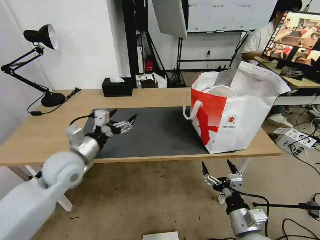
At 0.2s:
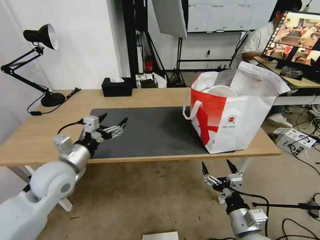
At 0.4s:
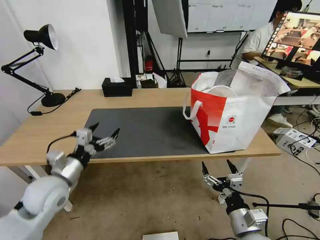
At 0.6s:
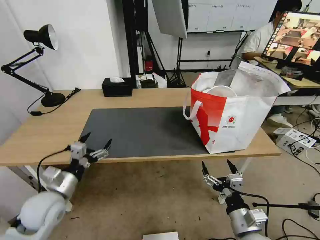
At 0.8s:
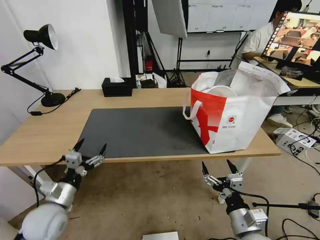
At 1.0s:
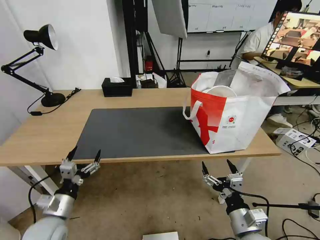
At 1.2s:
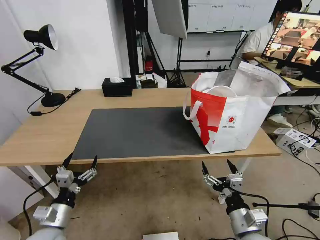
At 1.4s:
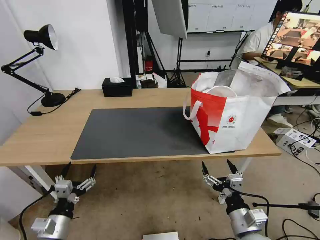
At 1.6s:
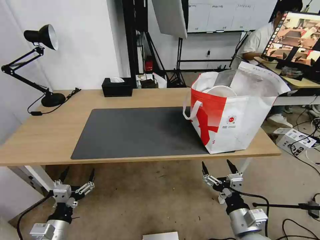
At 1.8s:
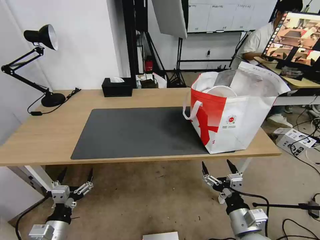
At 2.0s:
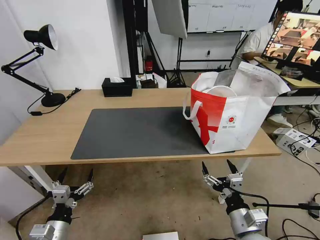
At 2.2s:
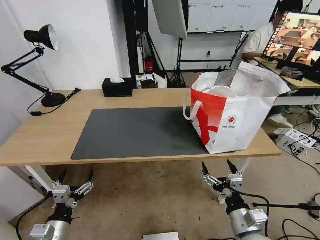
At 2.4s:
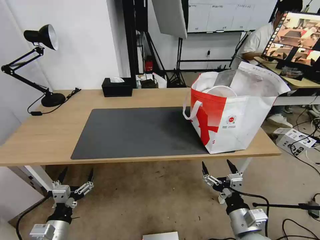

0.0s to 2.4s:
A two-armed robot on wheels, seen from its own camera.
Task of the whole recording: Pick up the trash from the table and place it into the takeout bag.
0.0s to 1.2s: The left gripper moves backward and downward, roughly 20 cm.
1.2s to 2.4s: The grippers make only small movements.

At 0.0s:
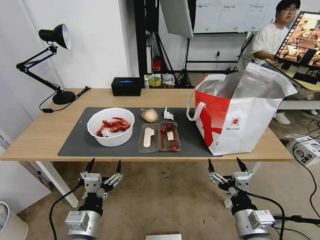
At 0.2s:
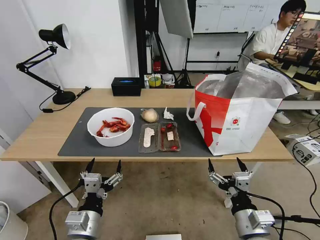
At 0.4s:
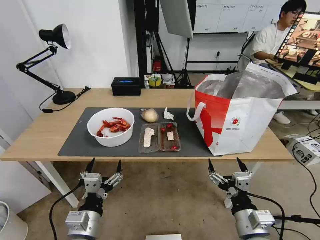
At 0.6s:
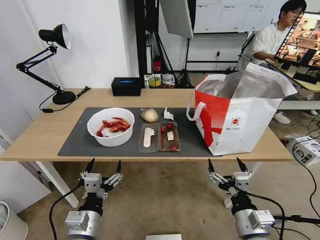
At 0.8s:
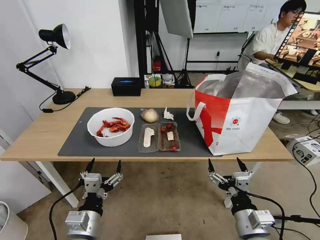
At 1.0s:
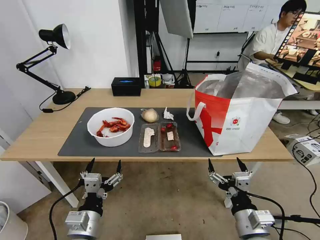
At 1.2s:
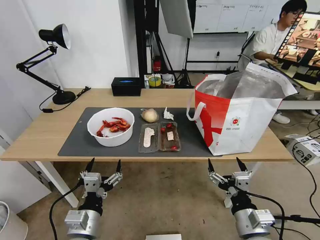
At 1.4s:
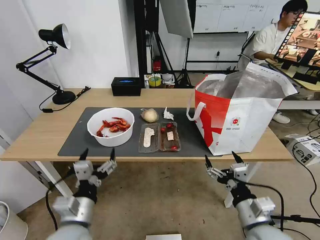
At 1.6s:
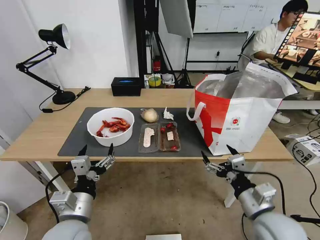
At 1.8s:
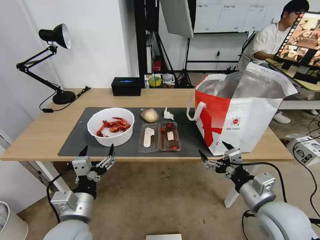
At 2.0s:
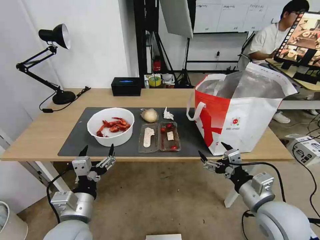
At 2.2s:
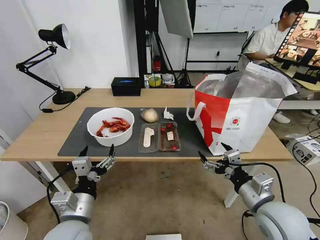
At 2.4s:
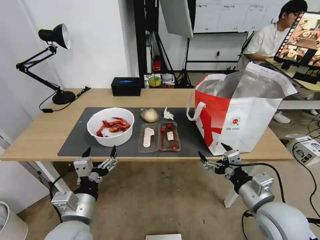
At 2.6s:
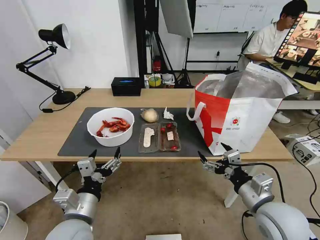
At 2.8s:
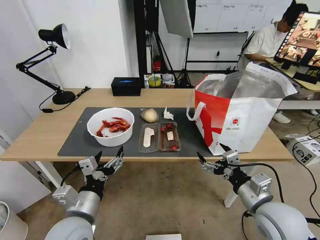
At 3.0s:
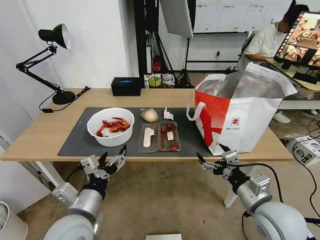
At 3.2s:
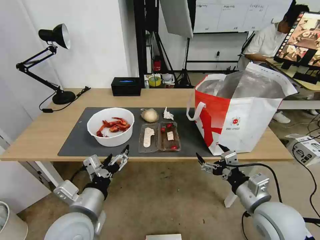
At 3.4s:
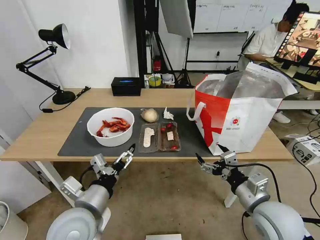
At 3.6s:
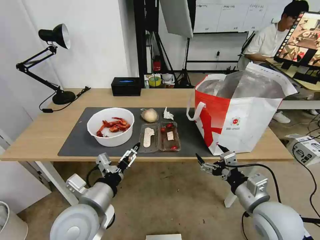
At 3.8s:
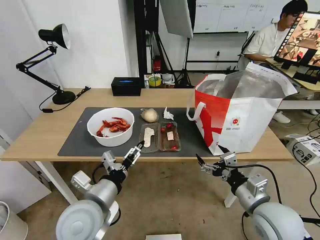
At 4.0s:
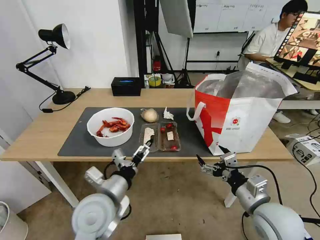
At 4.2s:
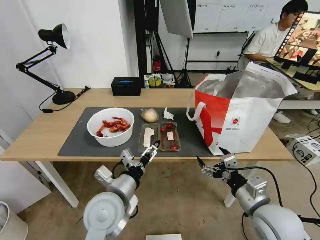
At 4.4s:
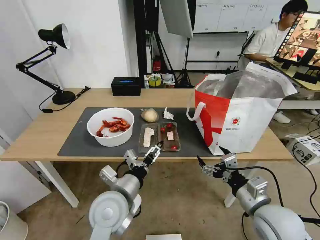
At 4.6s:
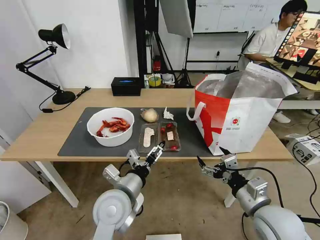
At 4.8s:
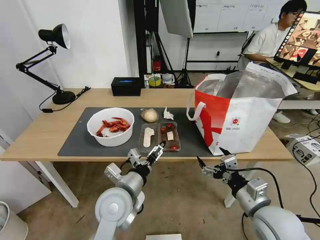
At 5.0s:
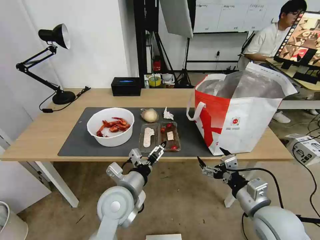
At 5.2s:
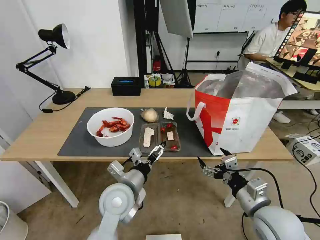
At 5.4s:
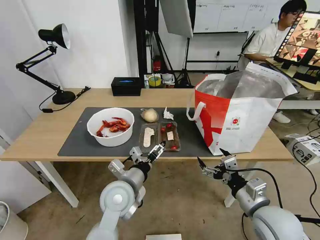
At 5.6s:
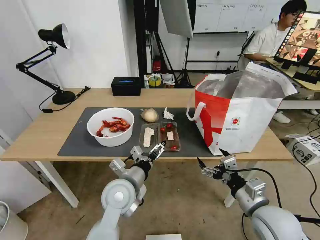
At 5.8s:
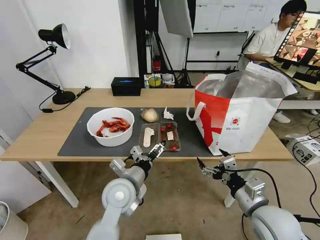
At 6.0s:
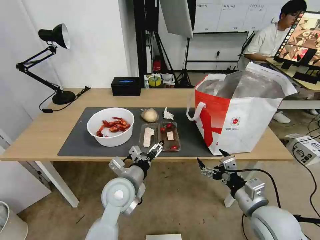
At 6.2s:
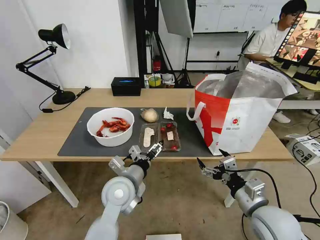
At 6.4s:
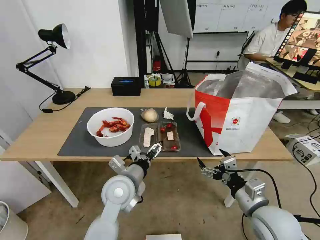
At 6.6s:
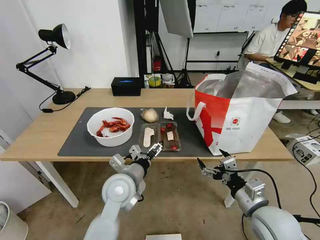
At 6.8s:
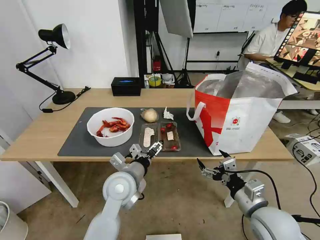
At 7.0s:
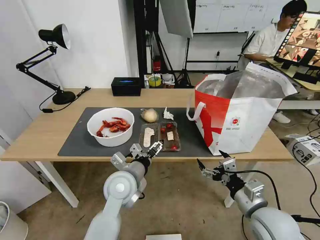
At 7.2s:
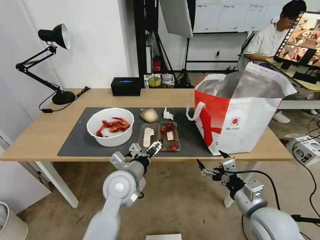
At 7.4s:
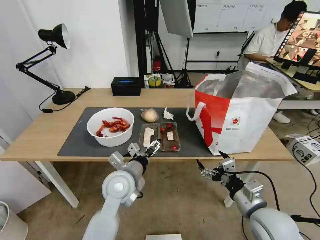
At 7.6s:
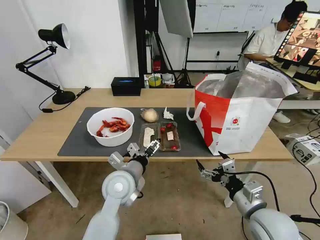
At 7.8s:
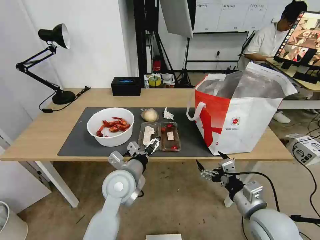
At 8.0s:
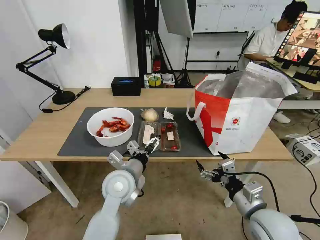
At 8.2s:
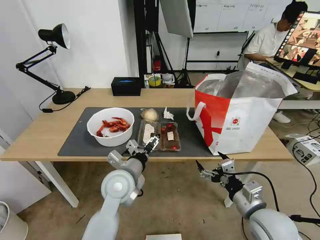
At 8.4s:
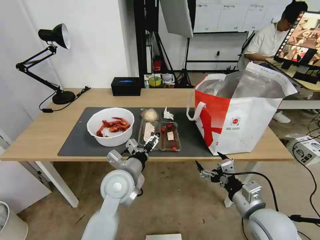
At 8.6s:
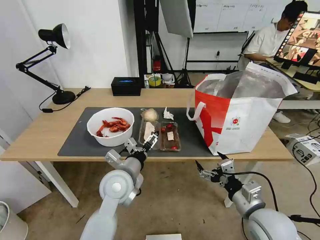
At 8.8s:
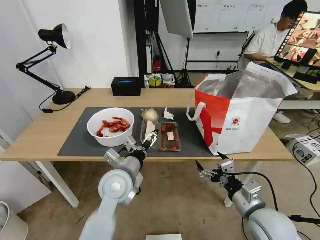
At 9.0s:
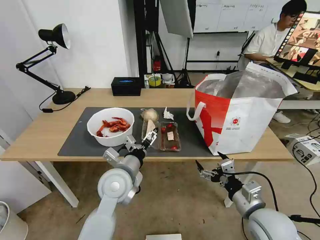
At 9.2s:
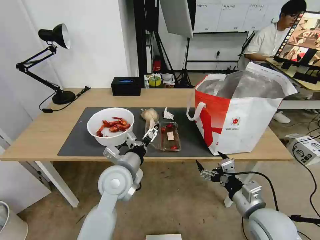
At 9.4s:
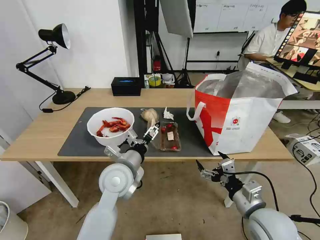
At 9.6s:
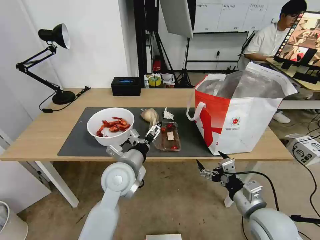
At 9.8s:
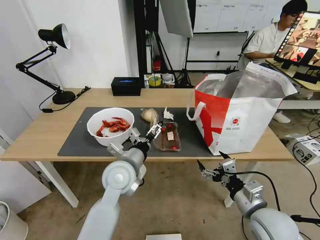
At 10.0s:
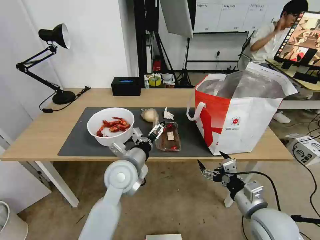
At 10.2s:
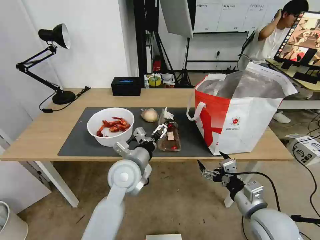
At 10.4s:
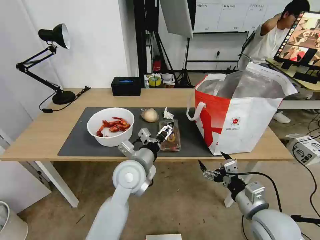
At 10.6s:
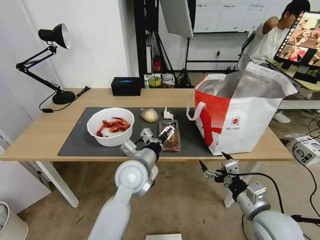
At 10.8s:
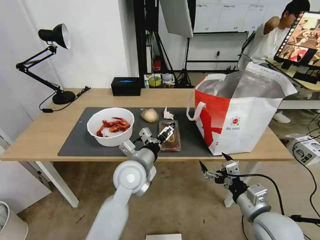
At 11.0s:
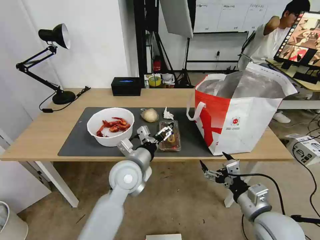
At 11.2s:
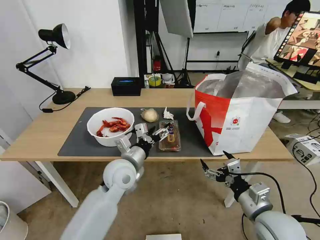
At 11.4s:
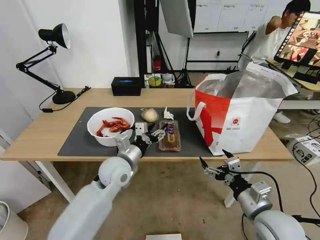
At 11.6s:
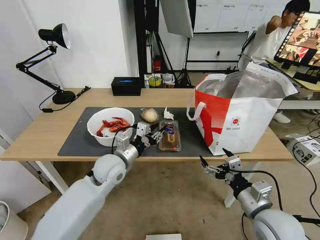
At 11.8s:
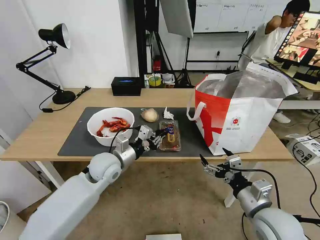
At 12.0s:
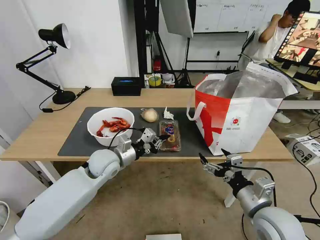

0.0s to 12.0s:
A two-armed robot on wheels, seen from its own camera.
Task of the whole recording: Pick up the trash from the table and place it into the takeout bag.
3.0s to 4.4s: The left gripper moves to the right and forward, some 10 cm.
4.4s to 6.0s: The left gripper heads forward, covering about 5 cm.
6.0s to 10.4s: There are only small adjustments of the grippers.
10.4s to 12.0s: The left gripper shifts about 10 cm to the left and forward, and closes its fingers.

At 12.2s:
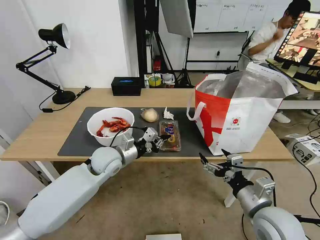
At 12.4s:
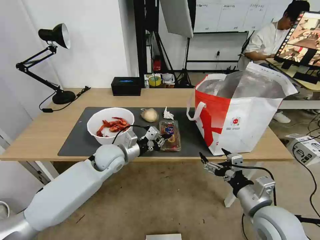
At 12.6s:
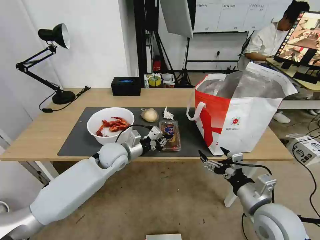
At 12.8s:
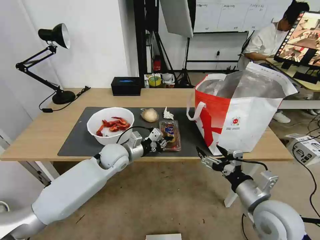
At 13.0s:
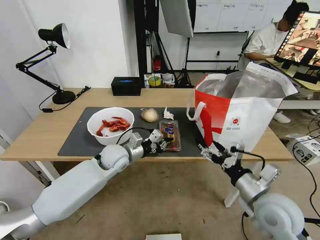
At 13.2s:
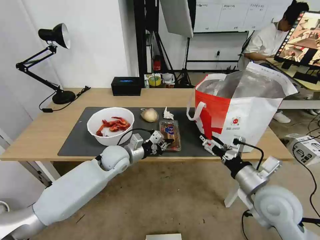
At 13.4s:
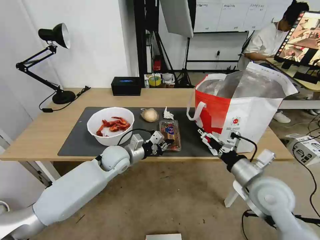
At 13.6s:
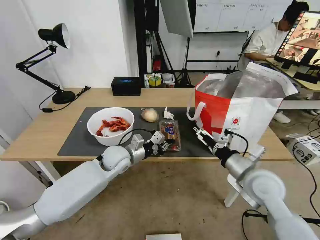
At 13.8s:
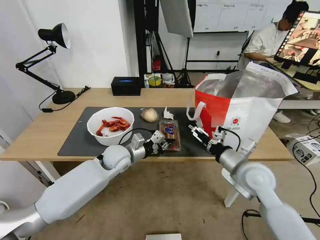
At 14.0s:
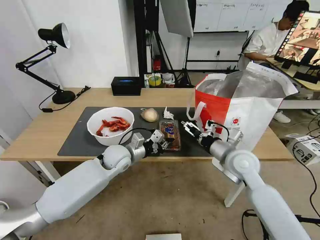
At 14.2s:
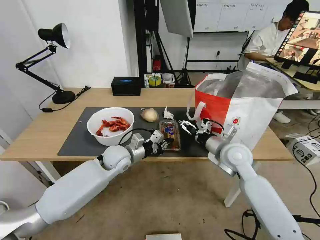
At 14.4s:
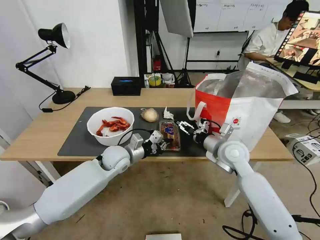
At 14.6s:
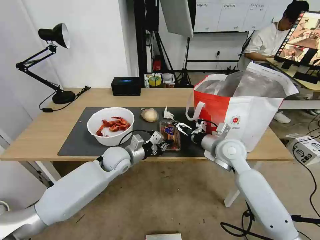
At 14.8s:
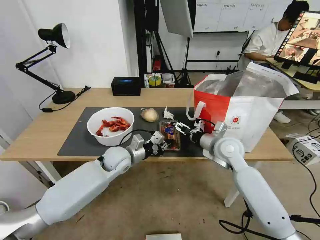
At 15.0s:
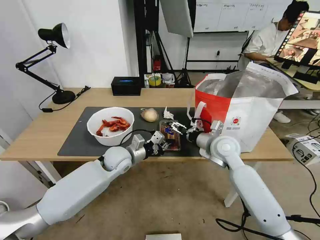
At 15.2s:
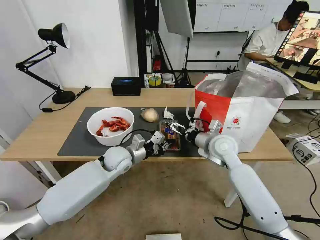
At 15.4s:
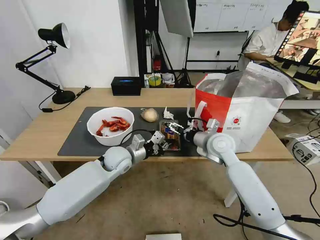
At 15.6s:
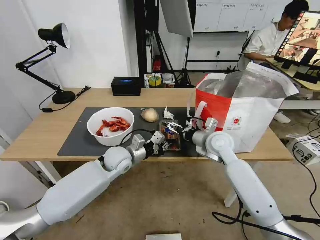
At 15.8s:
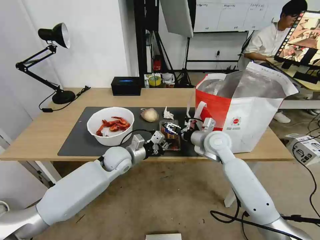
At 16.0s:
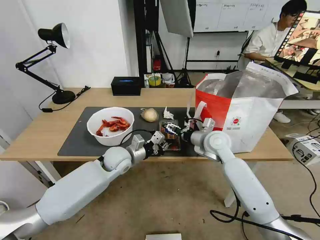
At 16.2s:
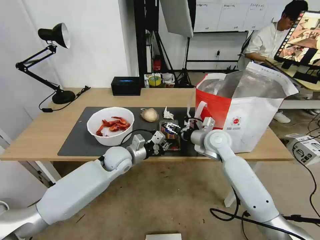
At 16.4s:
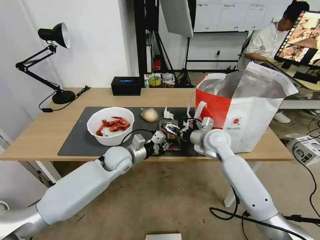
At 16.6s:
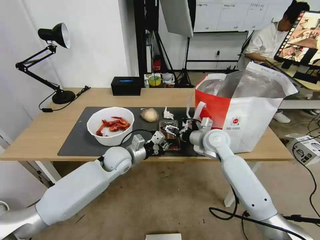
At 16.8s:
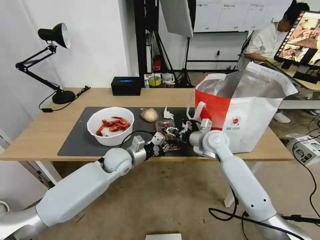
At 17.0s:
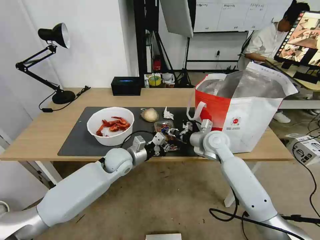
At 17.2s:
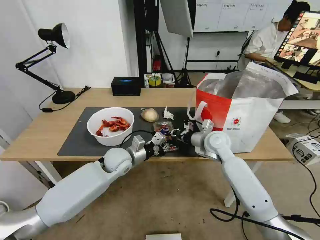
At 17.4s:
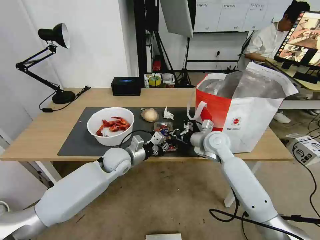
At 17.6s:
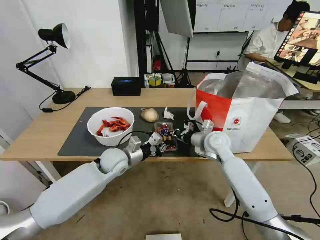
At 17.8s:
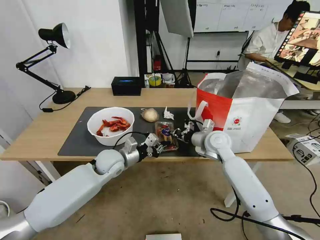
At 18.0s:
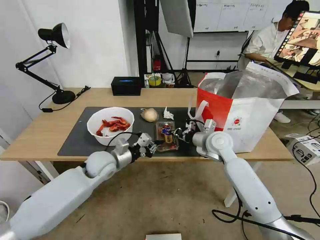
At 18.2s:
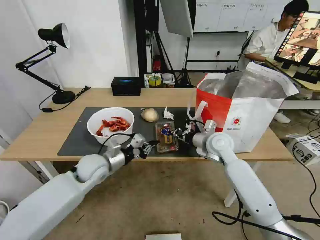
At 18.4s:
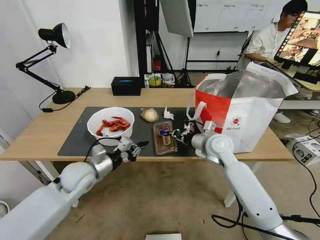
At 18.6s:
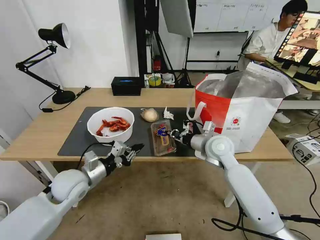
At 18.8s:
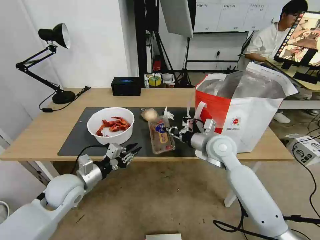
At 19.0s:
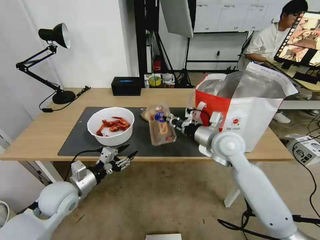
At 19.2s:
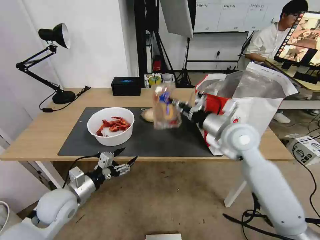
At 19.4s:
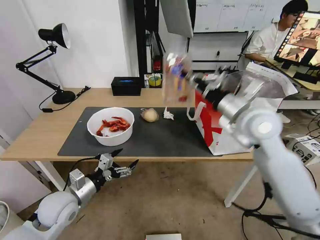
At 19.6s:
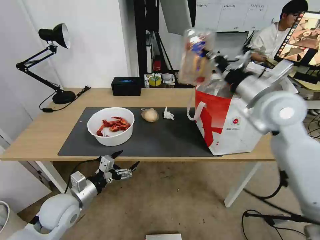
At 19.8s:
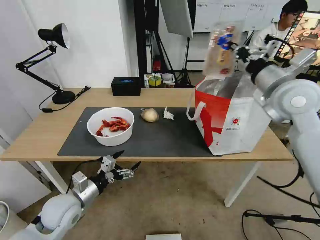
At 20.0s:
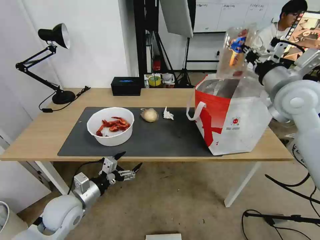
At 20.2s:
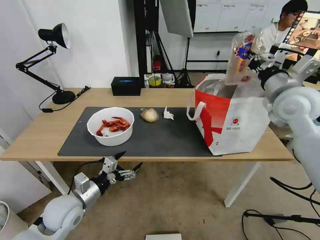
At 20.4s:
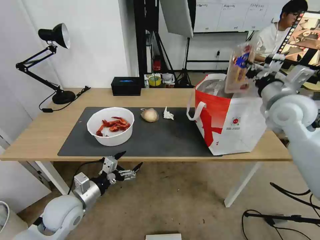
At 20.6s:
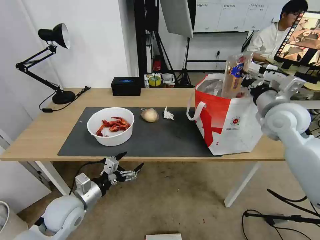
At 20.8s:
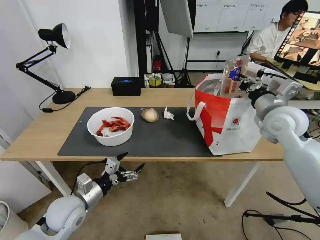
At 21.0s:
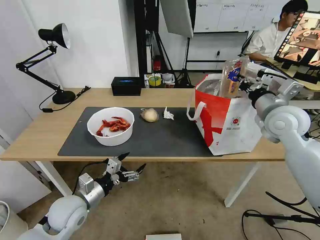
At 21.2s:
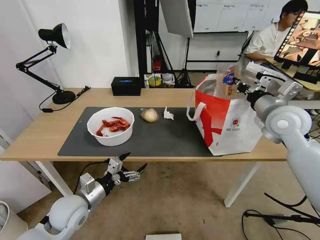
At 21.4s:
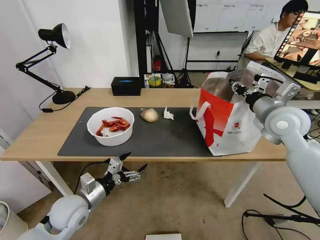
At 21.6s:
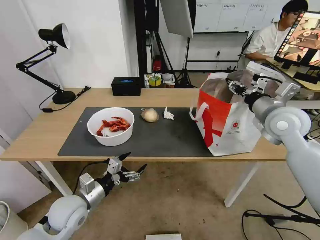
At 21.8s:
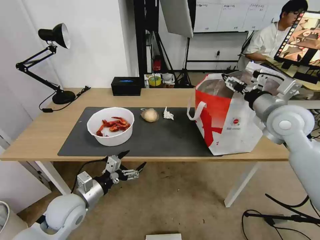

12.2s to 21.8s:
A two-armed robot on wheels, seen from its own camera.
Task of the whole recording: Pick up the trash from the table and place it into the takeout bag.
12.2s to 13.8s: The right gripper travels forward by roughly 10 cm.
13.8s to 15.4s: The right gripper moves forward and to the left, some 15 cm.
15.4s to 17.0s: The right gripper closes its fingers.
17.0s to 18.6s: The right gripper closes up. The left gripper goes some 15 cm to the left and backward.
18.6s to 20.2s: The right gripper travels upward and to the right by some 25 cm. Meanwhile the left gripper heads backward, covering approximately 5 cm, and opens.
20.2s to 21.8s: The right gripper goes some 5 cm downward, and opens its fingers.
